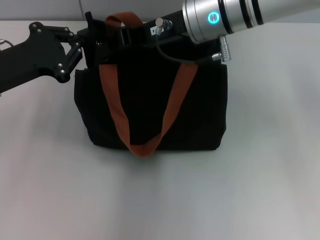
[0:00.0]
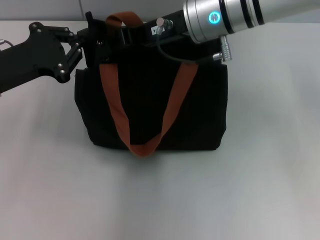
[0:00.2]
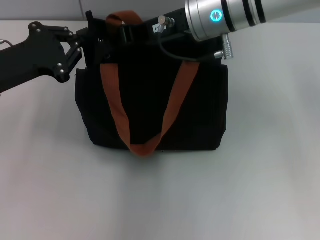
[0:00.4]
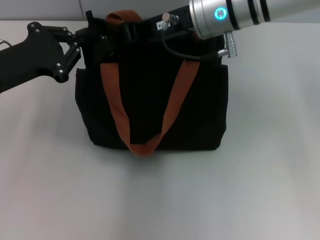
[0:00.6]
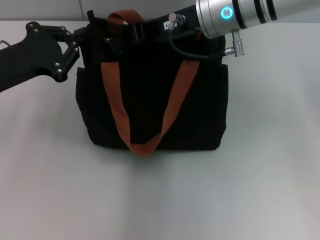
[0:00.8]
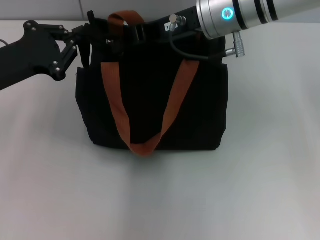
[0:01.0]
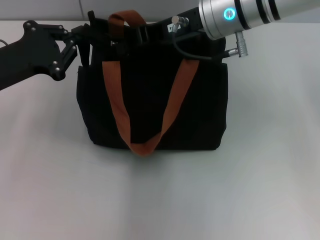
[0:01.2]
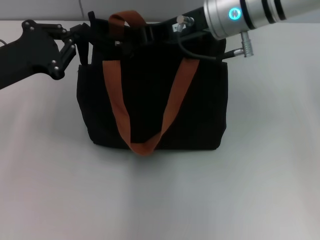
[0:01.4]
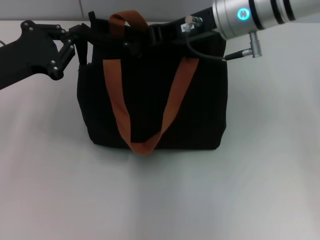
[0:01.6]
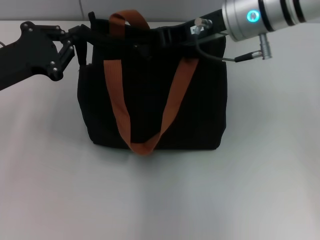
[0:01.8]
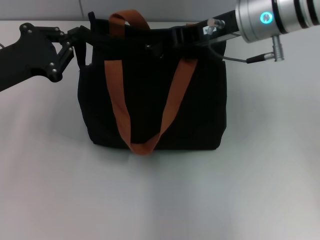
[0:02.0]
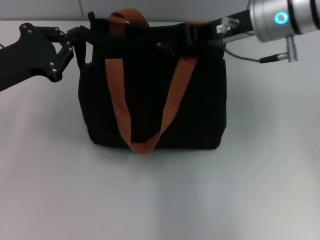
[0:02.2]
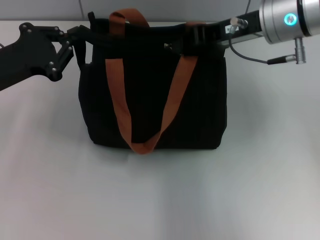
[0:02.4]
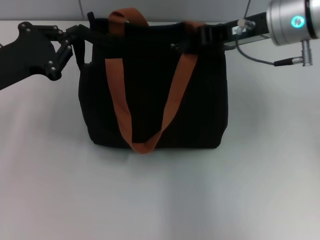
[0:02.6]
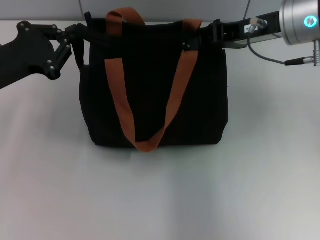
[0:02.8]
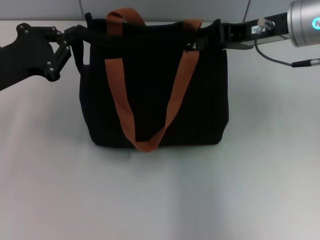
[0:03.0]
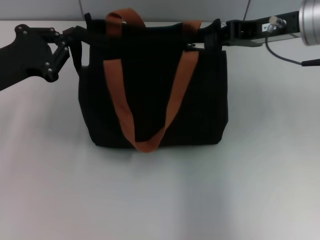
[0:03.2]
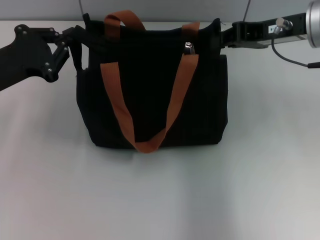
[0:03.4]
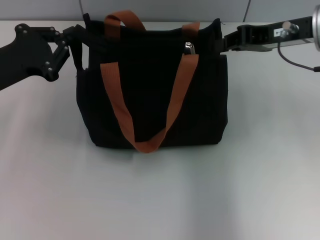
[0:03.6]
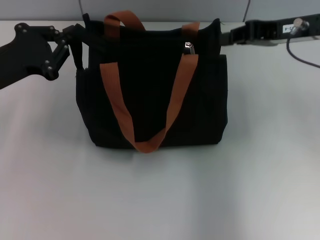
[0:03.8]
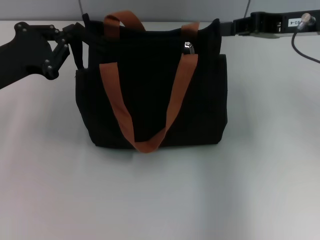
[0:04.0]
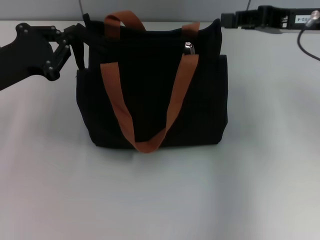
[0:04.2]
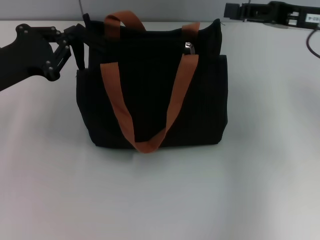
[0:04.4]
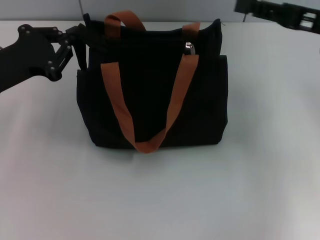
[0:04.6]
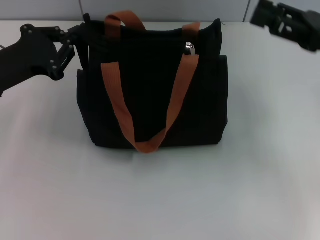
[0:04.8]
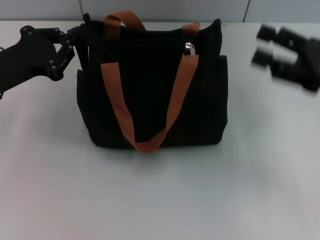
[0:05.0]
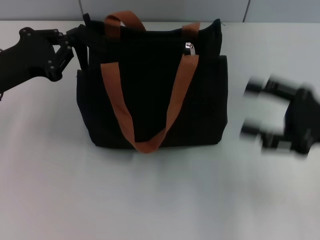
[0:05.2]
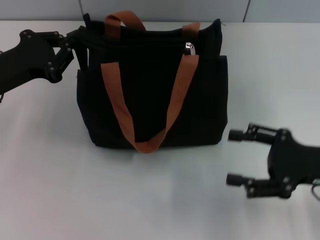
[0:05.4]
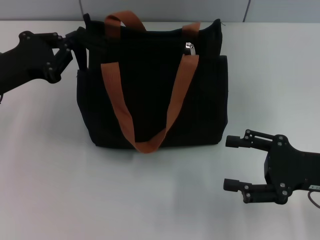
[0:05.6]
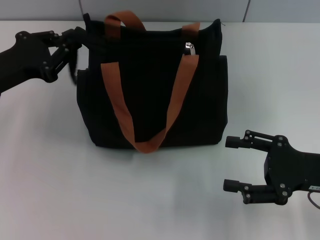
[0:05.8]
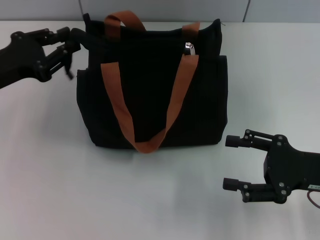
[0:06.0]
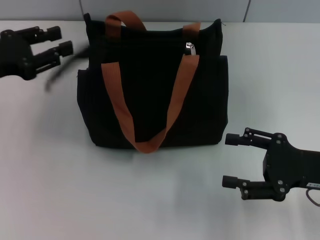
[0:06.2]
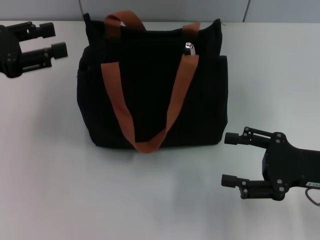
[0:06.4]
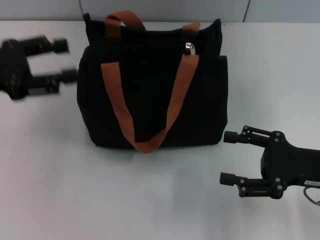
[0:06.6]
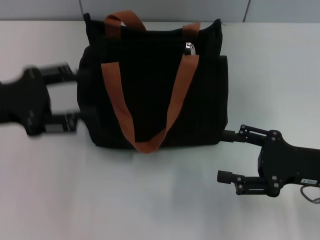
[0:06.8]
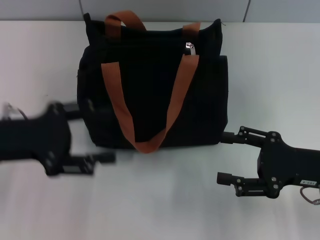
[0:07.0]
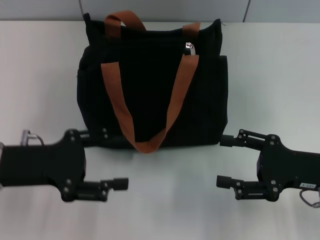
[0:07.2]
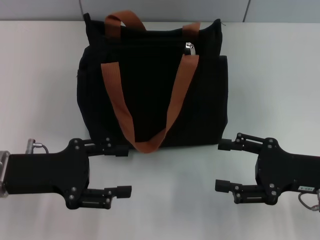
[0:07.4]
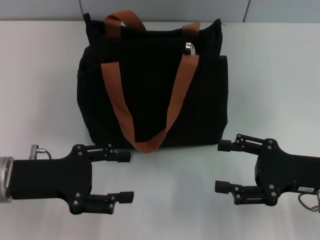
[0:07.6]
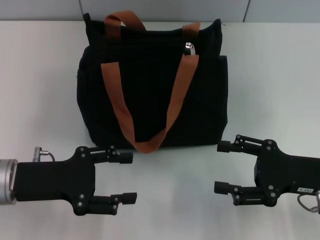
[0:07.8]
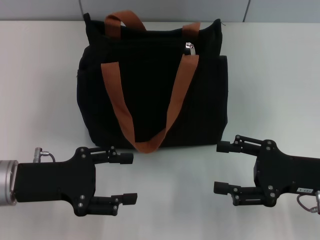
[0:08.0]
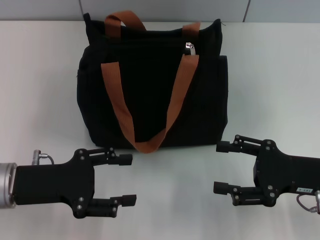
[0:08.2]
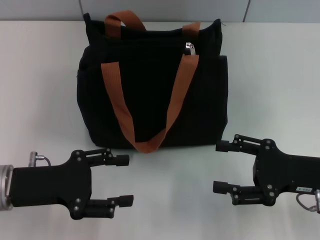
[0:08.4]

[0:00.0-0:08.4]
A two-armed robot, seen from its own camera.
Step, 0:00.0 to 0:03.2: Pull up the zipper with your right hand.
Step, 0:03.4 to 0:06.4: Grab the zipper with your left hand.
0:00.0 to 0:01.4: There are only small adjustments of the grippers.
0:01.4 to 0:02.8: The right gripper heads to the right, covering approximately 10 cm.
0:02.8 to 0:04.2: The right gripper moves to the right, approximately 5 cm.
0:04.2 to 0:05.6: The right gripper shifts approximately 20 cm backward and downward, and opens up.
0:05.6 to 0:07.0: The left gripper travels backward by approximately 5 cm, and opens its fingers.
0:07.0 to 0:08.4: The left gripper travels downward by about 5 cm.

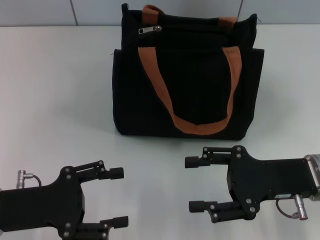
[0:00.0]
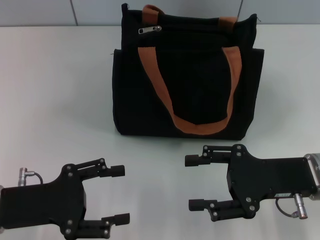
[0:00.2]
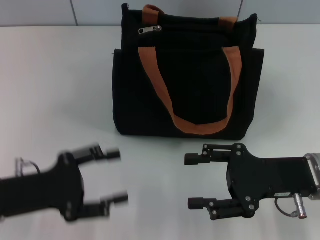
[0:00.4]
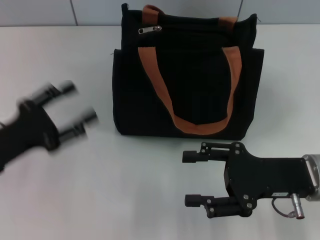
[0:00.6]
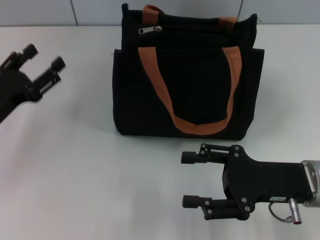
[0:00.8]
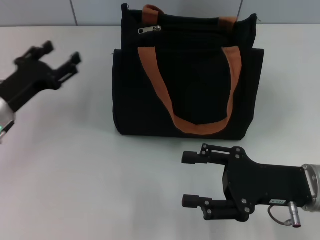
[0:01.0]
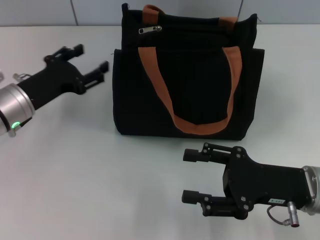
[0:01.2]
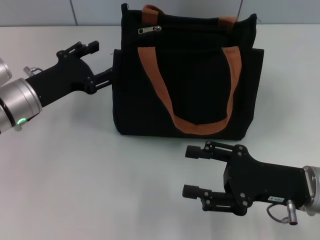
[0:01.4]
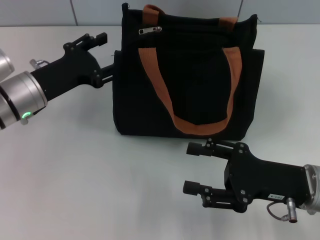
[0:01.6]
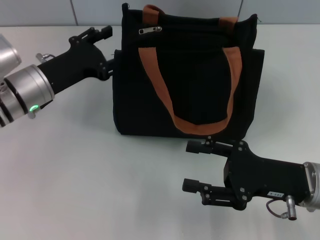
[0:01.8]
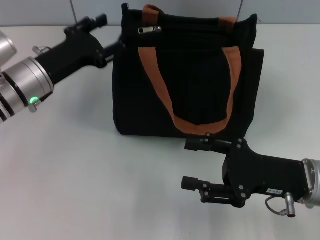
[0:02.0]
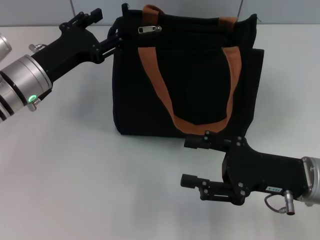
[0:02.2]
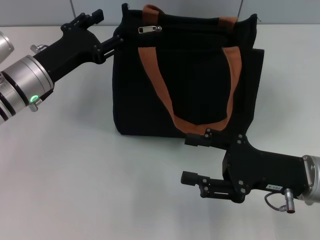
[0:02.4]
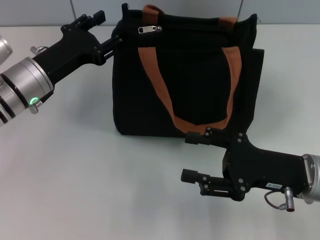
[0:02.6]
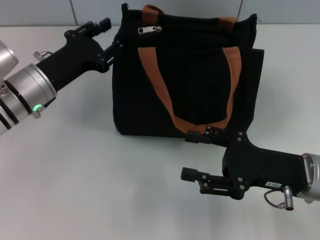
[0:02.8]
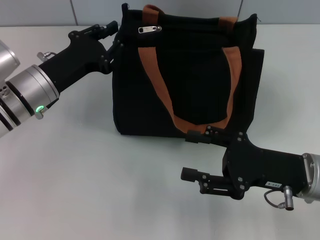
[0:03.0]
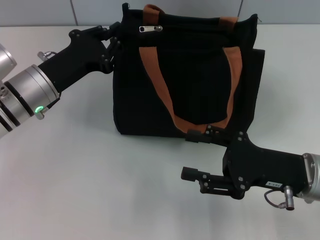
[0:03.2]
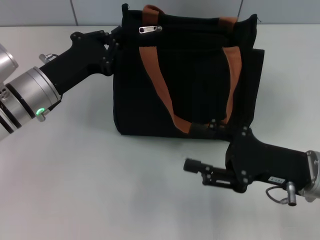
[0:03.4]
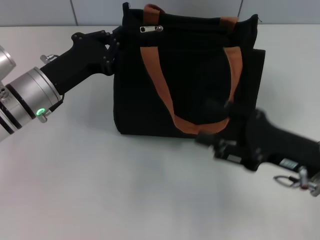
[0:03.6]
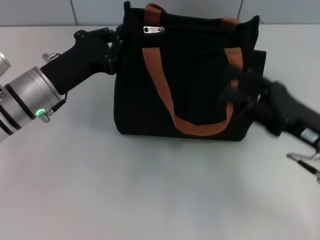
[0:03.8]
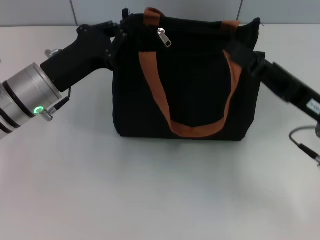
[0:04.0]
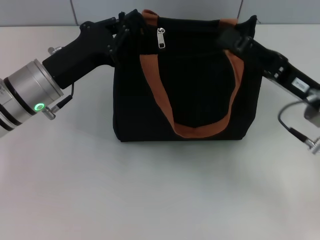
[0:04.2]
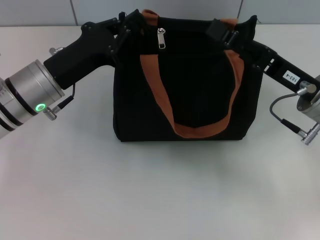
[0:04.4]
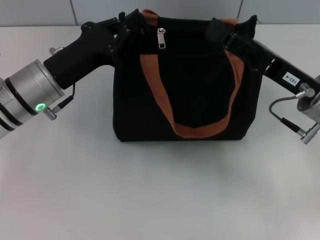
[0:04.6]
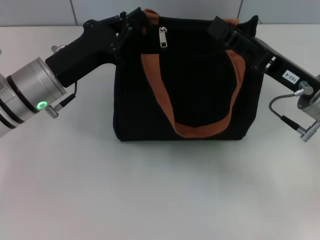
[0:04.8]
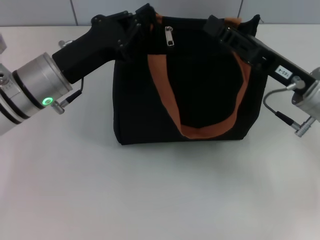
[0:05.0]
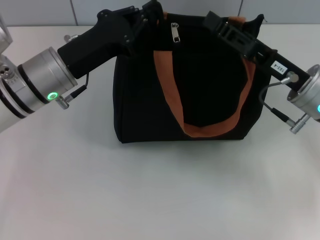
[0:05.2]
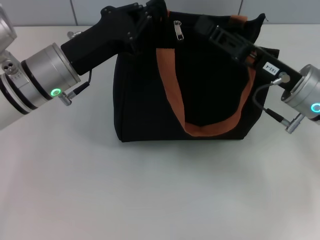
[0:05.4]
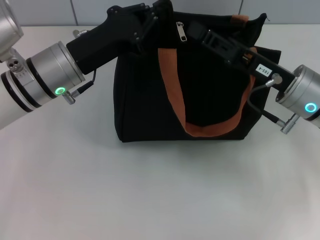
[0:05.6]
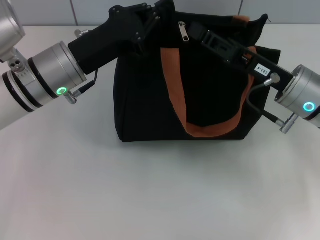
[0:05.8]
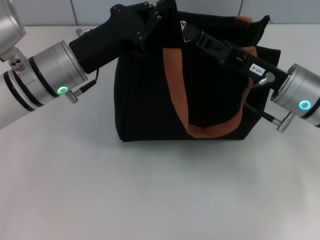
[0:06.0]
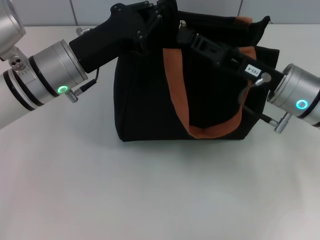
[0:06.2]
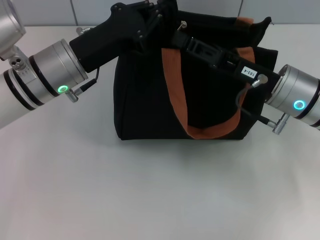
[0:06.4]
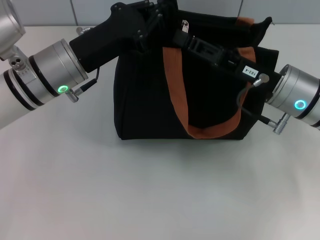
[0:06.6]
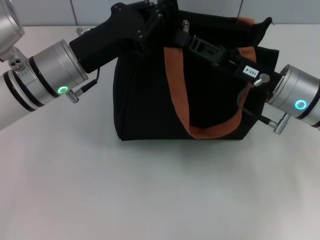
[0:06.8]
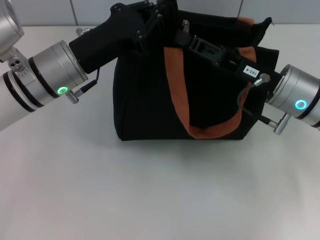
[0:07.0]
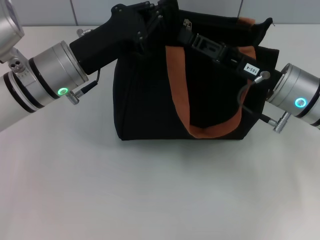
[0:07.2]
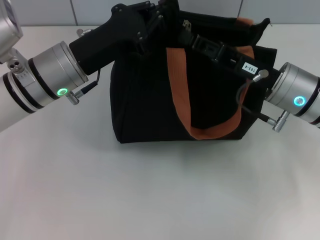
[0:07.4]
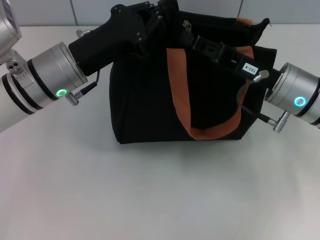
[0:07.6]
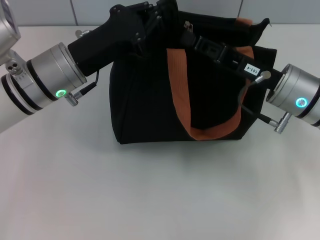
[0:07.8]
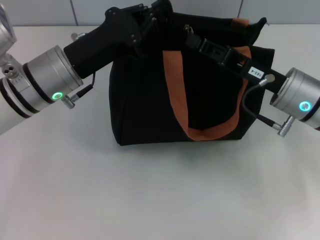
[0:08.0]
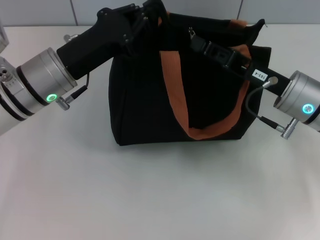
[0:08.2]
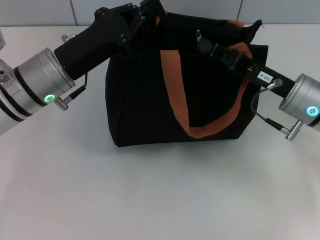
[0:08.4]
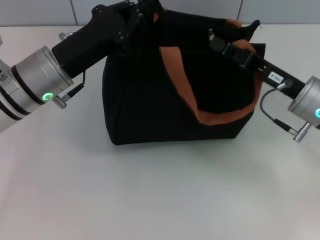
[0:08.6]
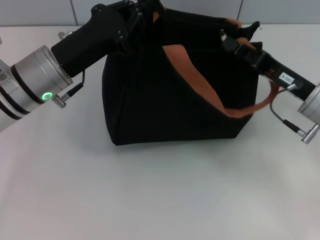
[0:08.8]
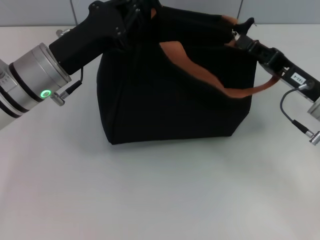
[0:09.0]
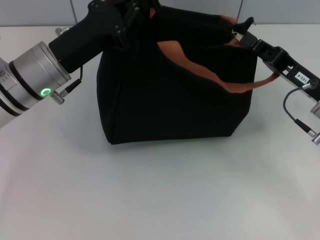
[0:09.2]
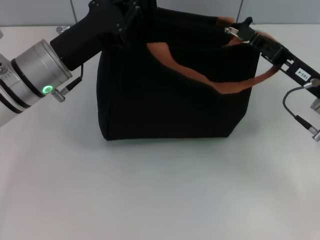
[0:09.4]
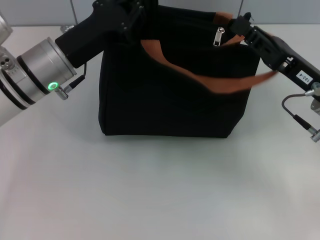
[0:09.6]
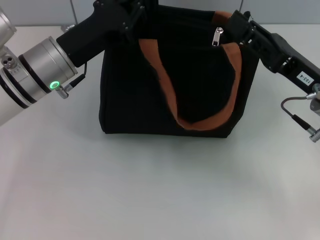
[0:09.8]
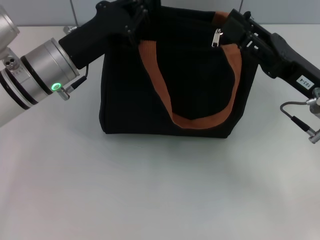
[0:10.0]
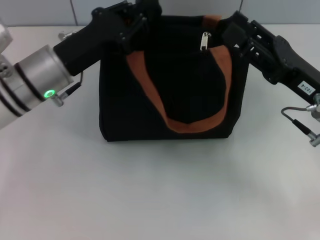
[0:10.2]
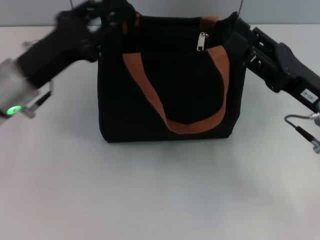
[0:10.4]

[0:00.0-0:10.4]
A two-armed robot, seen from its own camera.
Step, 0:00.0 to 0:09.4: Pull up the zipper with your right hand.
0:00.0 to 0:01.4: The left gripper shifts about 15 cm forward.
0:01.4 to 0:03.0: The left gripper closes.
0:03.0 to 0:04.4: The left gripper closes its fingers. Meanwhile the right gripper goes about 5 cm forward.
0:04.4 to 0:06.0: The right gripper closes its fingers.
0:06.0 to 0:07.4: There are only small adjustments of the grippers.
0:07.4 to 0:09.0: The right gripper travels to the right by about 5 cm.
0:09.0 to 0:10.4: The right gripper opens.

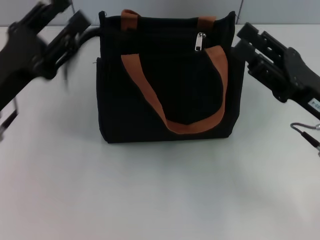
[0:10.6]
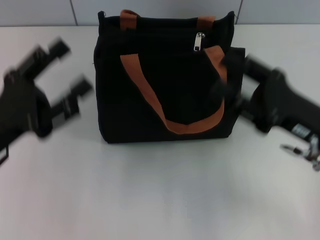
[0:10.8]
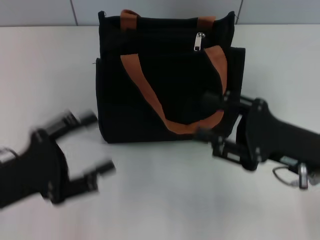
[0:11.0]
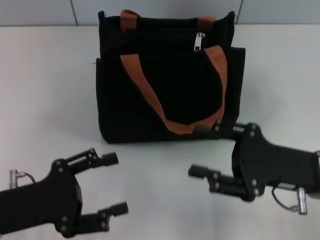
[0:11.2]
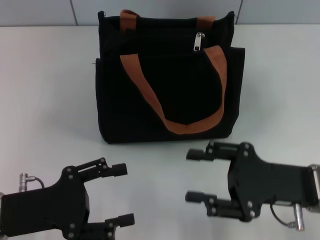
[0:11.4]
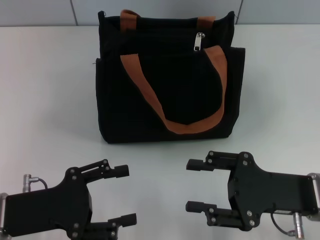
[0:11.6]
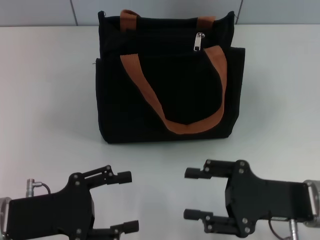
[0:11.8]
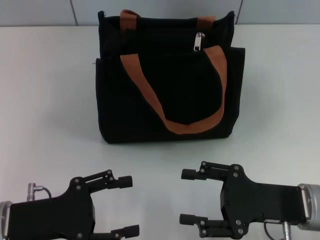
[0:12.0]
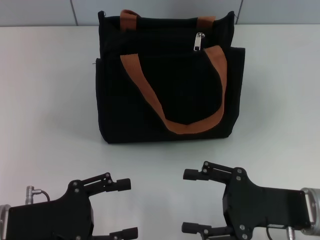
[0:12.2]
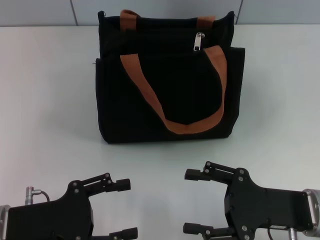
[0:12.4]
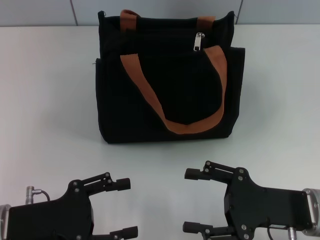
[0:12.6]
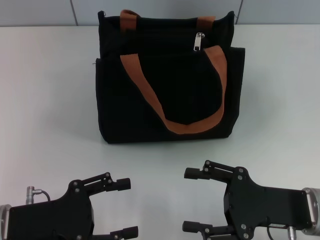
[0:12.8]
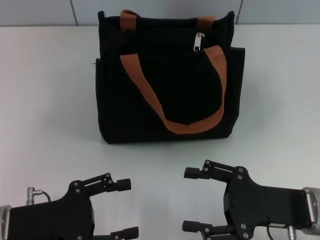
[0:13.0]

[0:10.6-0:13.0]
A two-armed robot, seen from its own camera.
0:10.6 to 0:11.8: The right gripper heads backward, covering roughly 5 cm. The left gripper moves backward and downward, some 10 cm, and opens.
0:11.8 to 0:13.0: Neither gripper changes place.

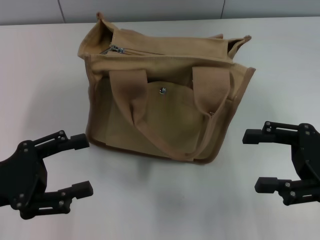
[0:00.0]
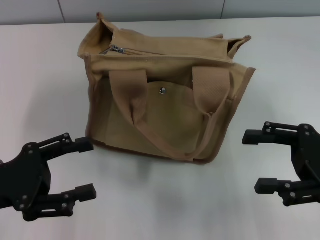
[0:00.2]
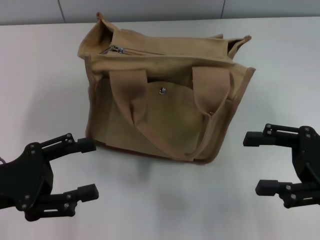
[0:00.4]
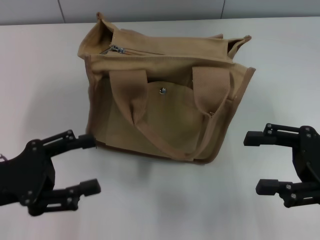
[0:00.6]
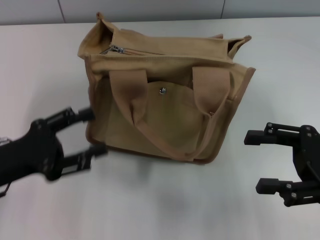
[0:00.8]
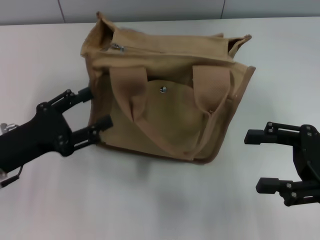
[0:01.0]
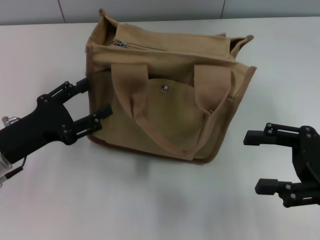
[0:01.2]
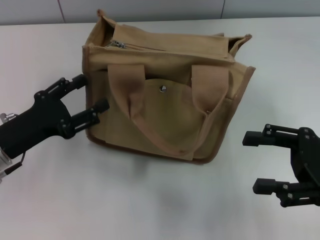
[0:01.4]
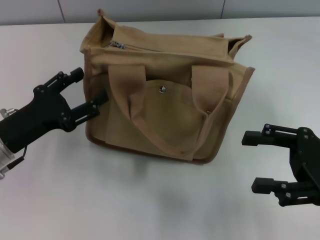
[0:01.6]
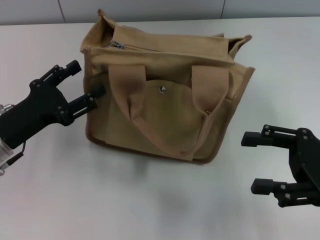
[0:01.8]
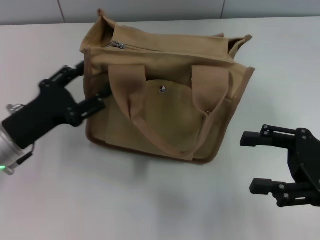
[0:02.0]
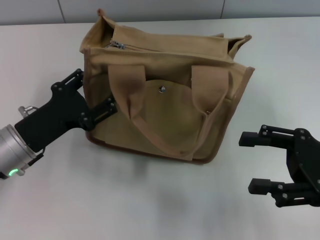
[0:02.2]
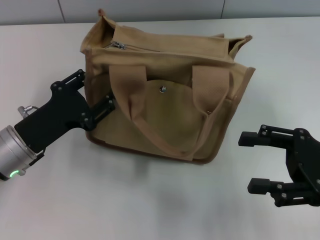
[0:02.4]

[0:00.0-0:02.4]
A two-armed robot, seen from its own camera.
0:00.0 to 0:01.2: The left gripper shifts by approximately 5 cm.
0:01.2 to 0:02.4: The grippers stay close to where they were, moving slightly.
